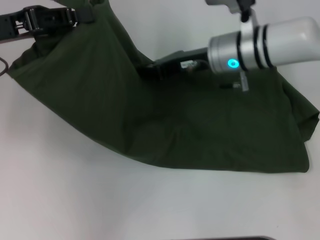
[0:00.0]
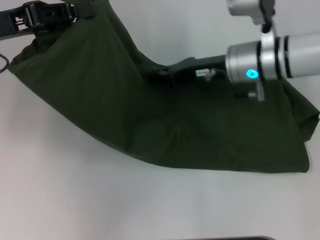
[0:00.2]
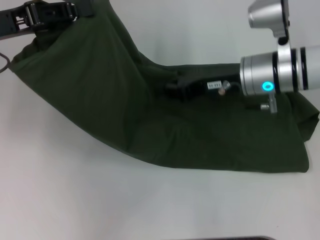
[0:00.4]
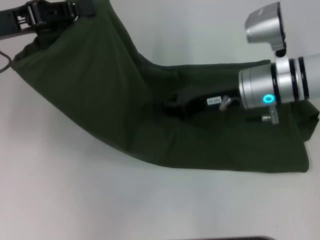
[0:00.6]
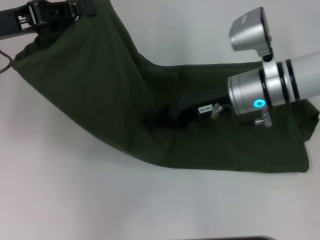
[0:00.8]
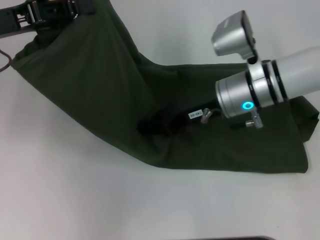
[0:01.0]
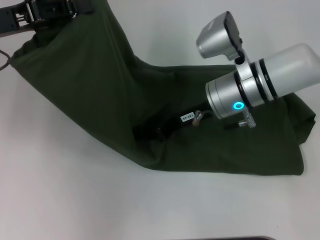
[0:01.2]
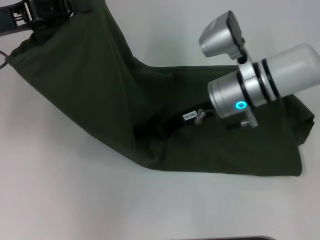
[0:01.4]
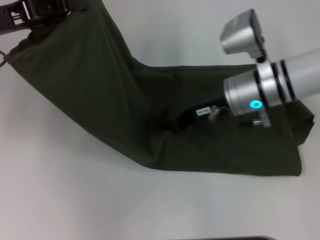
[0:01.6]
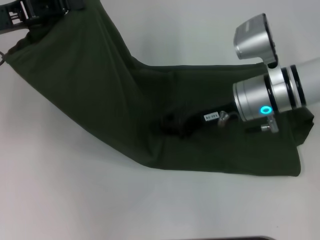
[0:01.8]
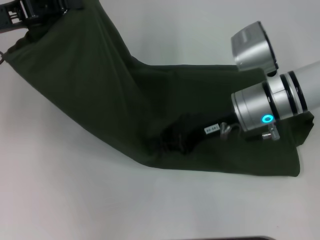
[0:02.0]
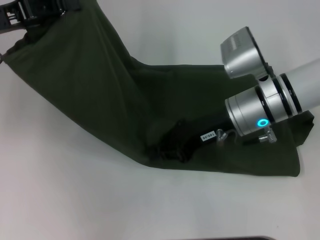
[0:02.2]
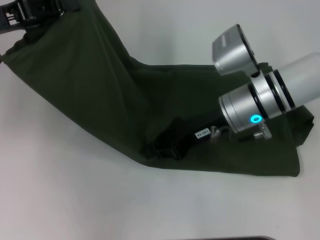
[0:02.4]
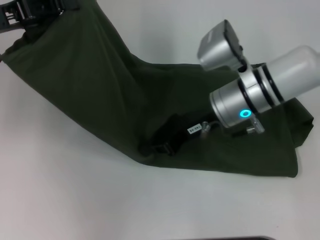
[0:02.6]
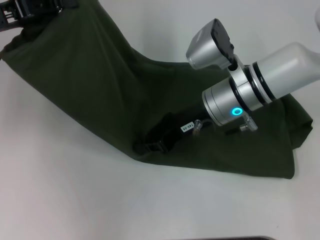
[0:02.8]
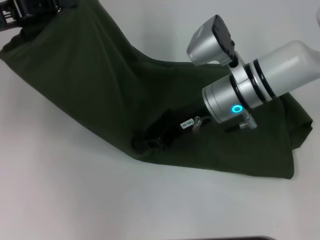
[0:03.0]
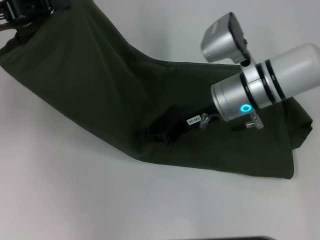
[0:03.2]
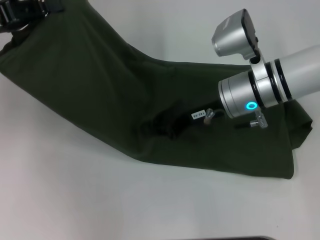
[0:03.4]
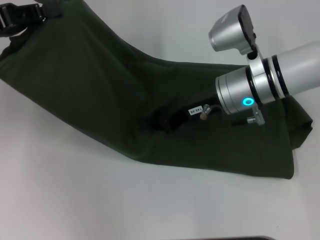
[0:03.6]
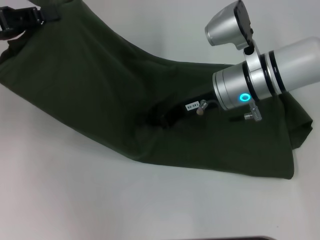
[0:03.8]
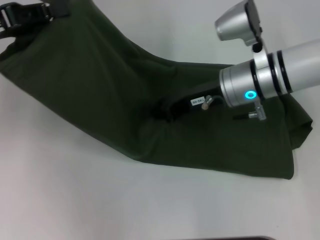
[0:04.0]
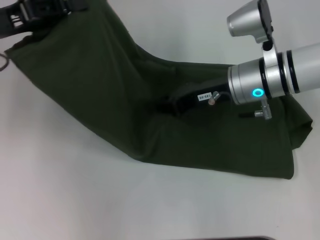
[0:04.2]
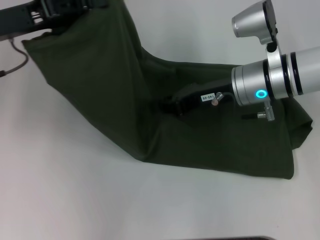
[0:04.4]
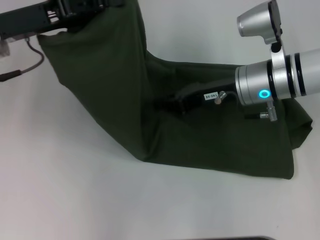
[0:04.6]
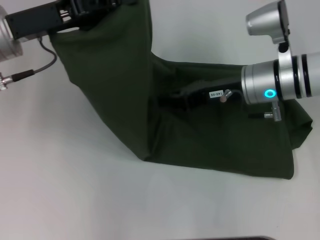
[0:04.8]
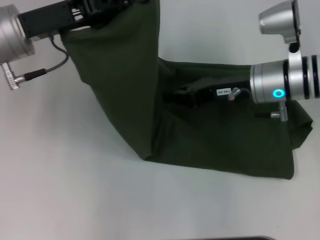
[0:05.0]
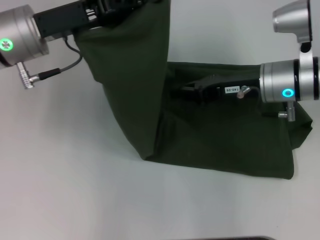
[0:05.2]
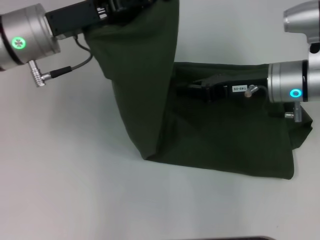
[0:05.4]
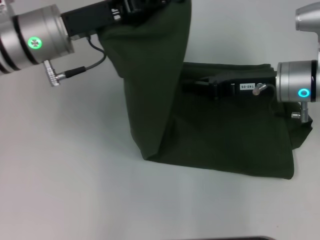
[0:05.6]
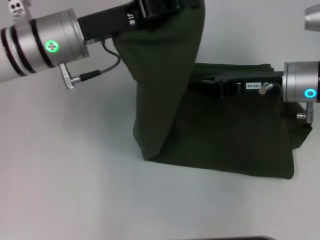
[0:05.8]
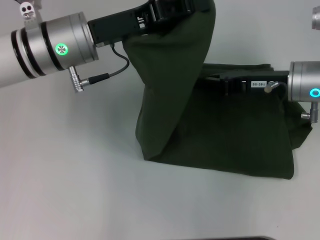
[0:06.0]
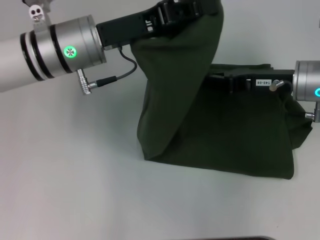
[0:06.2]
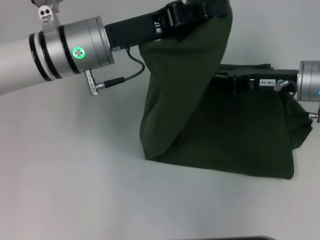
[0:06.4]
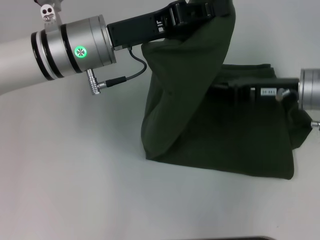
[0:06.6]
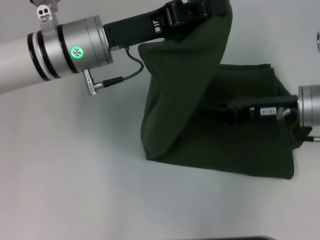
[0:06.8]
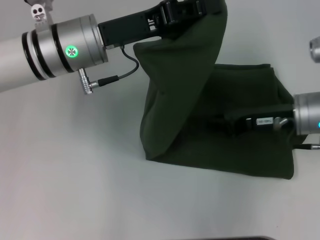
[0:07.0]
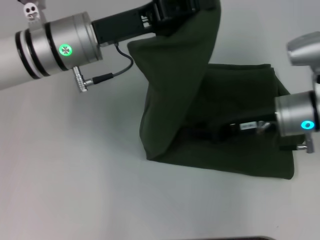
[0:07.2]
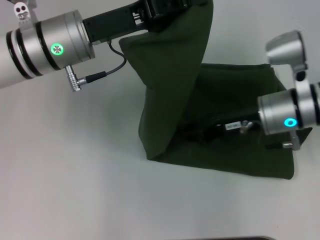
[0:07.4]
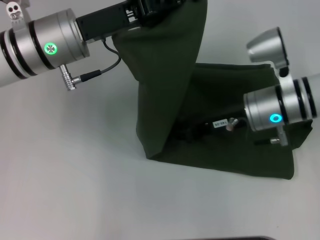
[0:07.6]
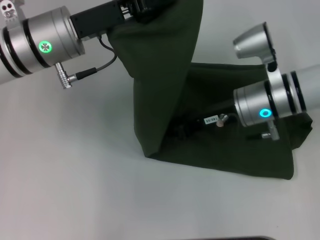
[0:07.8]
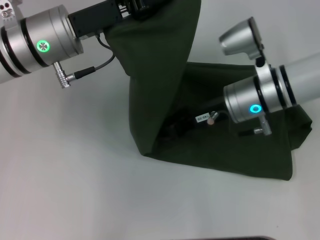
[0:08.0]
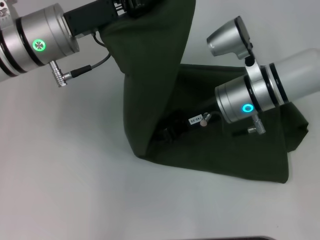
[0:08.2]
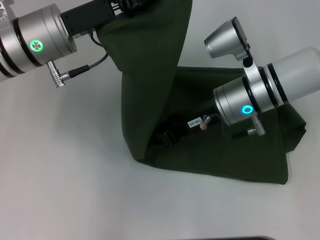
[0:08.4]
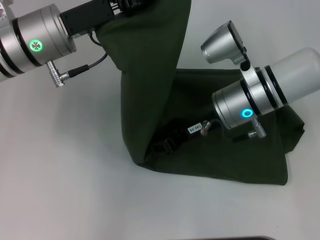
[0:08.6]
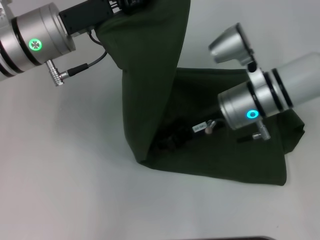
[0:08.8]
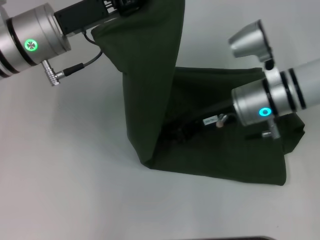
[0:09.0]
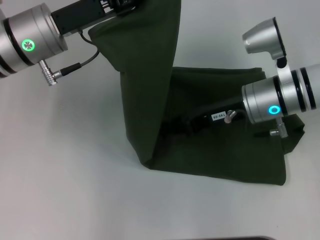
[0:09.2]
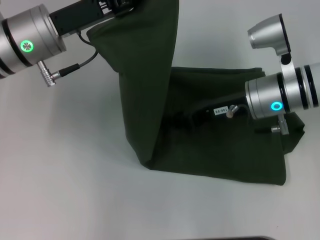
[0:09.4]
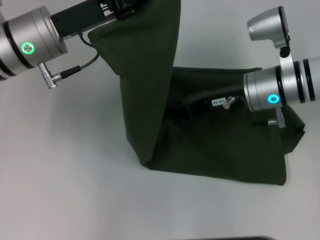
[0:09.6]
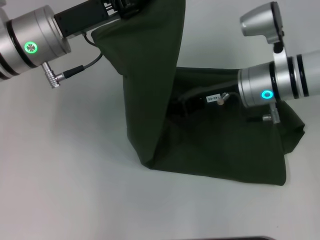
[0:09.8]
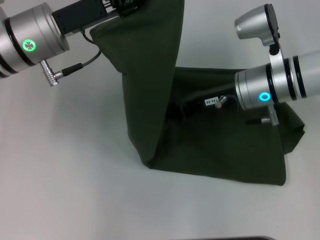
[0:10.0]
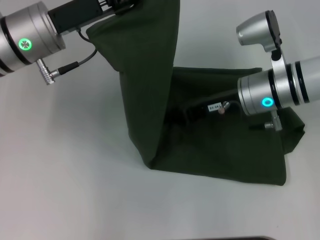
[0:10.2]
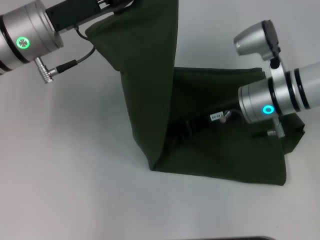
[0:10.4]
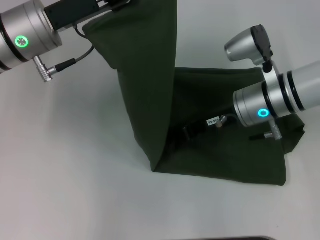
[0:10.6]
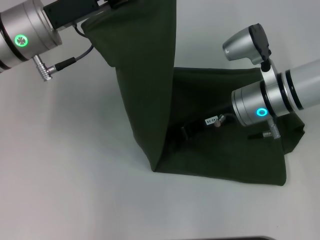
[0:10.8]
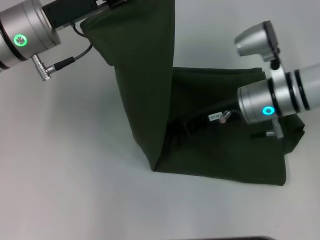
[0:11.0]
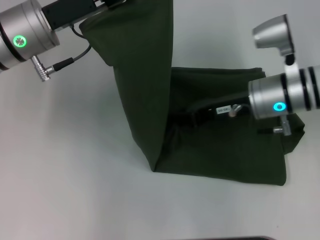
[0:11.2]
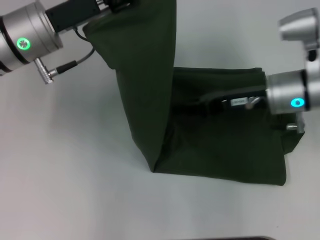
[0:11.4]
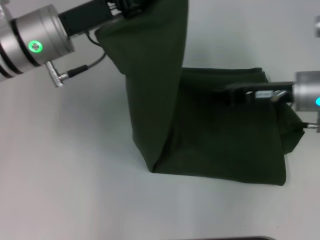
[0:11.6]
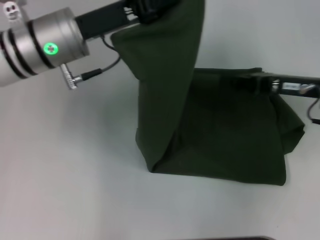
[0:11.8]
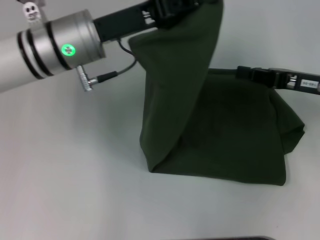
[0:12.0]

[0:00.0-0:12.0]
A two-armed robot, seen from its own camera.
0:00.0 to 0:01.6: The right gripper changes place by roughly 5 cm.
0:01.6 to 0:04.4: The grippers stay close to where they were, moving slightly.
0:04.4 to 0:06.0: The left gripper moves to the right, about 10 cm; the right gripper shifts roughly 10 cm to the right.
0:06.0 to 0:07.6: The right gripper goes about 5 cm to the left.
0:09.0 to 0:10.4: The grippers move only a little.
0:10.4 to 0:12.0: The right gripper shifts some 10 cm to the right.

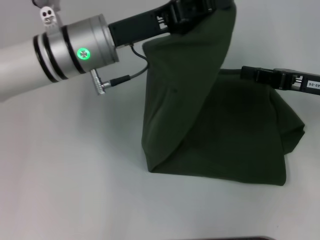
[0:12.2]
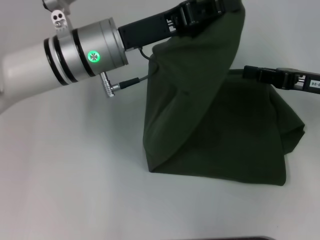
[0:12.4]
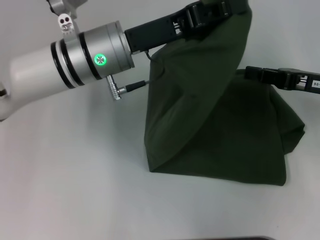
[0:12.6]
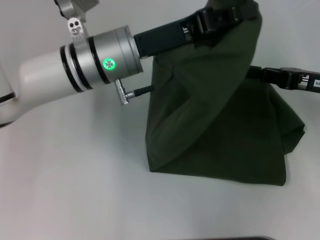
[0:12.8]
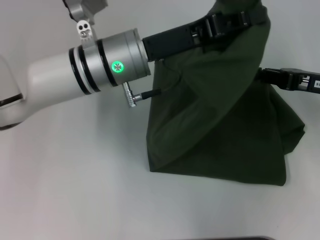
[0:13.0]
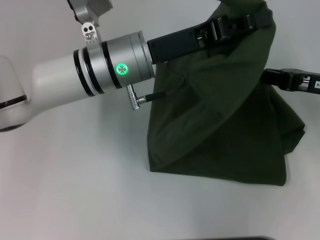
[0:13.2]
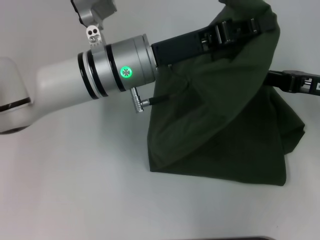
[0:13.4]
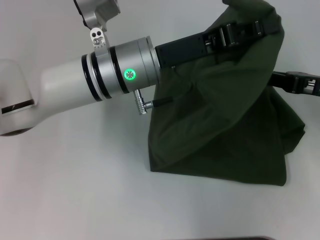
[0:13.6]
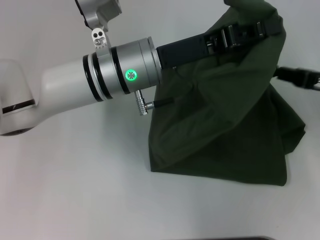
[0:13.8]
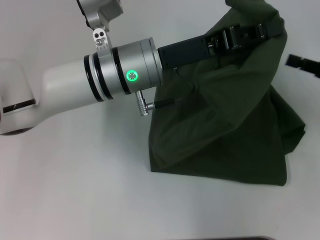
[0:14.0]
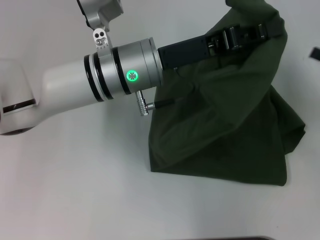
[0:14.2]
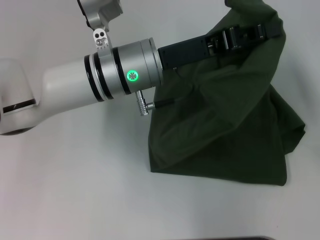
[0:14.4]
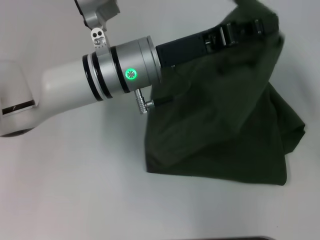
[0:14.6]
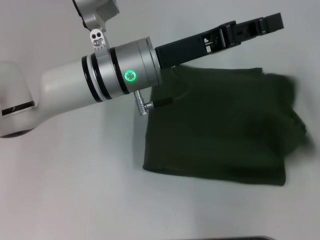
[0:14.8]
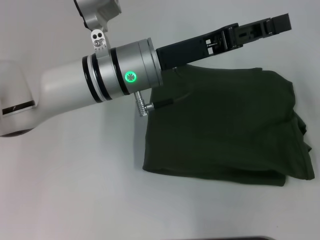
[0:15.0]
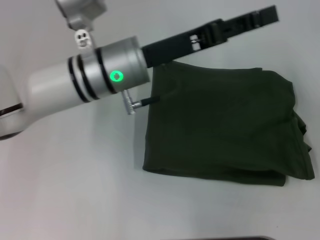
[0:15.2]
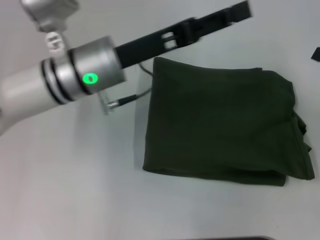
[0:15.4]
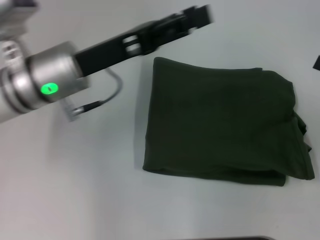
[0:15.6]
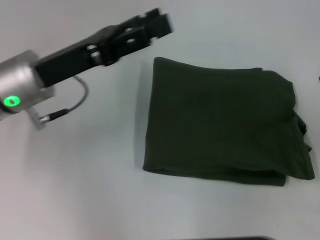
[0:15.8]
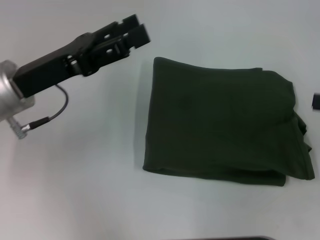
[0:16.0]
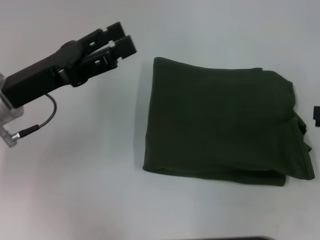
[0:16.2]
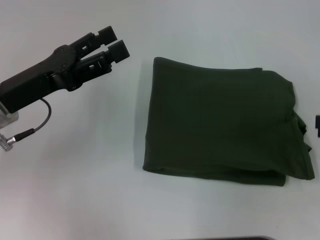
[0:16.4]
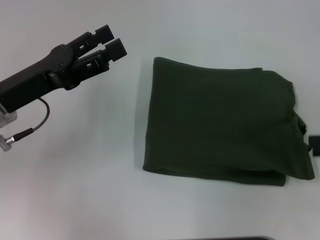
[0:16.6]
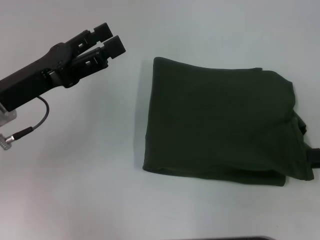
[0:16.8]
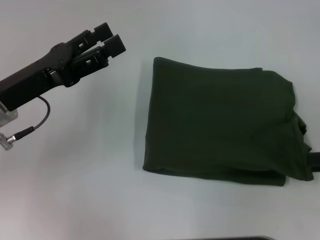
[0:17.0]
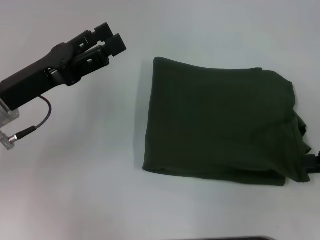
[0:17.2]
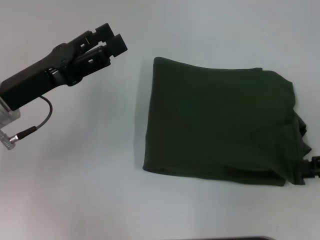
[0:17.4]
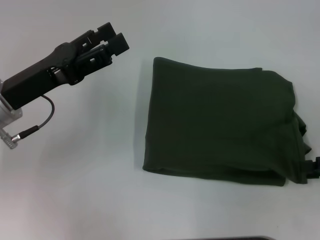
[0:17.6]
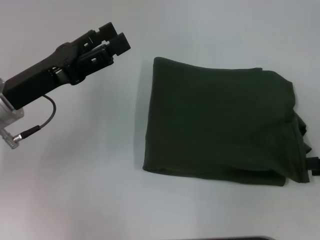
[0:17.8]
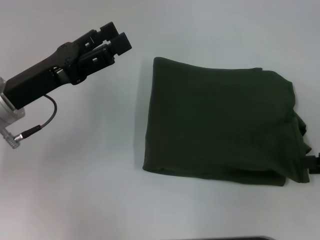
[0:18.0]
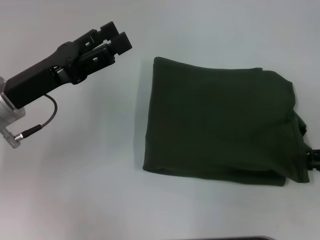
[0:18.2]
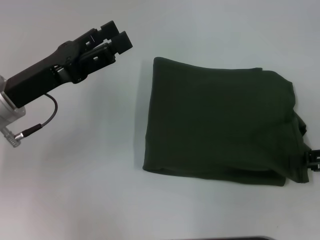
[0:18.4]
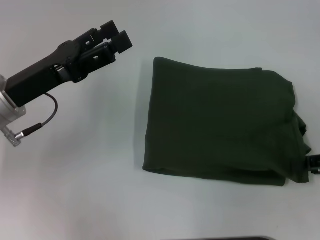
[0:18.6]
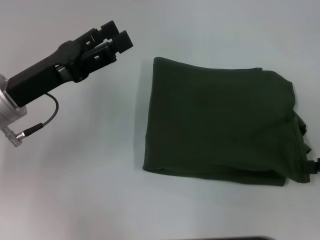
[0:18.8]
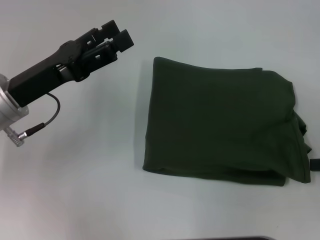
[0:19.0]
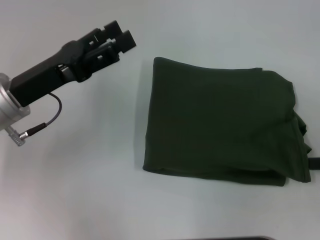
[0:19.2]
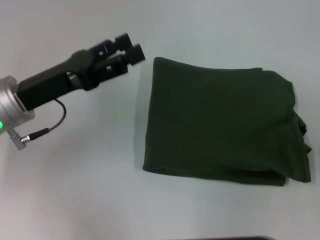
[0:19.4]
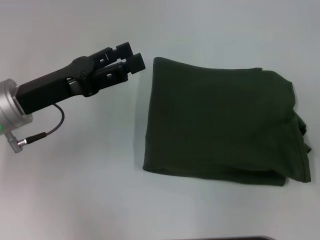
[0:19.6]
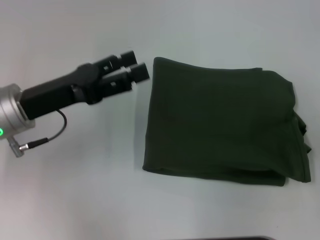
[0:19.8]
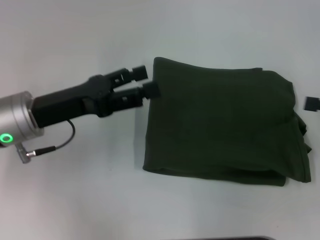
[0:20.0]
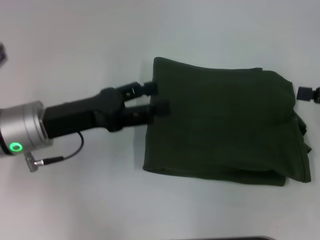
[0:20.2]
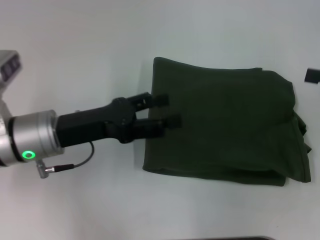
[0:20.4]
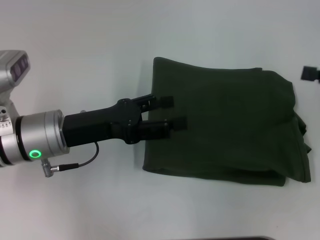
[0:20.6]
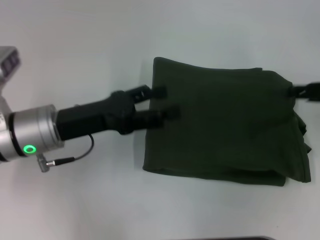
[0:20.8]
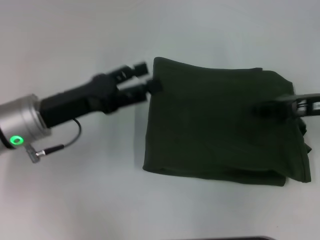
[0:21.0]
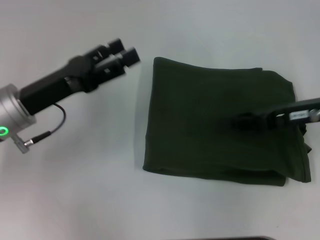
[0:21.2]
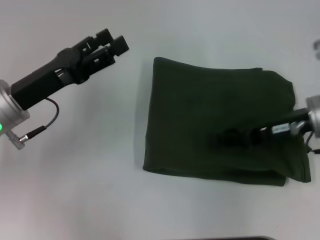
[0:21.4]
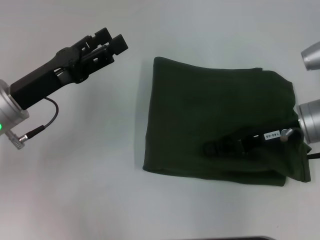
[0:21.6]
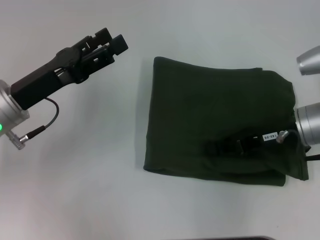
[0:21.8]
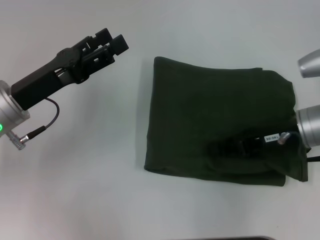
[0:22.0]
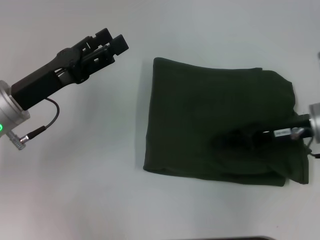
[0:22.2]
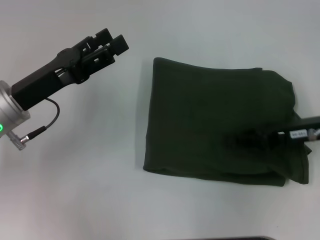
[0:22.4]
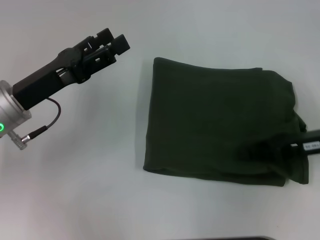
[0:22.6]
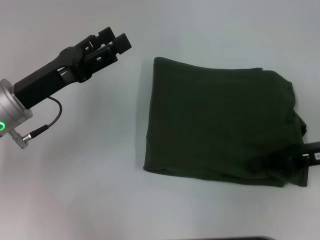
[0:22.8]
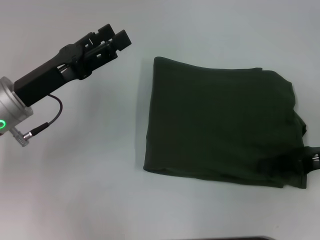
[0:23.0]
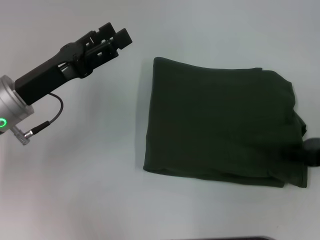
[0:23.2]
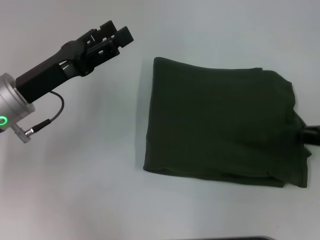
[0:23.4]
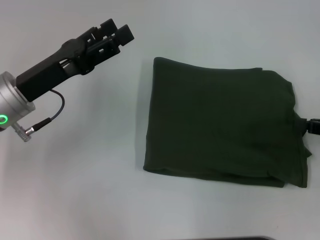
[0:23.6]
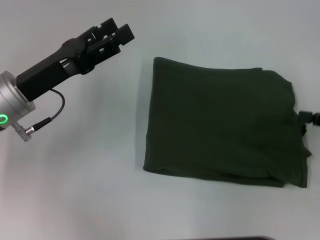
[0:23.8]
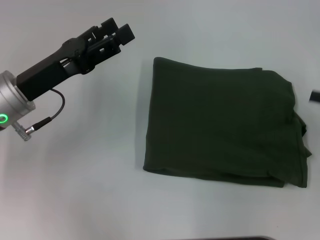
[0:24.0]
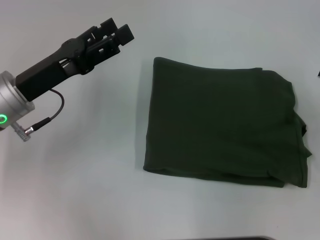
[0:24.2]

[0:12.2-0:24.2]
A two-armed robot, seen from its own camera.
Step, 0:12.2 to 0:17.2: Fold the clothes with your left hand.
0:12.2 to 0:13.8: The left gripper heads to the right, covering about 5 cm.
0:13.8 to 0:15.2: The right gripper shifts about 5 cm to the right. Meanwhile the left gripper opens.
0:15.2 to 0:16.6: The right gripper opens up; the left gripper heads to the left, covering some 15 cm, and opens.
0:16.6 to 0:18.2: The grippers make only small movements.
0:18.2 to 0:19.8: The right gripper closes.
0:19.8 to 0:21.2: The right gripper travels to the left and forward by about 15 cm.
0:21.2 to 0:22.6: The grippers move only a little.
0:22.6 to 0:24.2: The right gripper shifts about 10 cm to the right.
